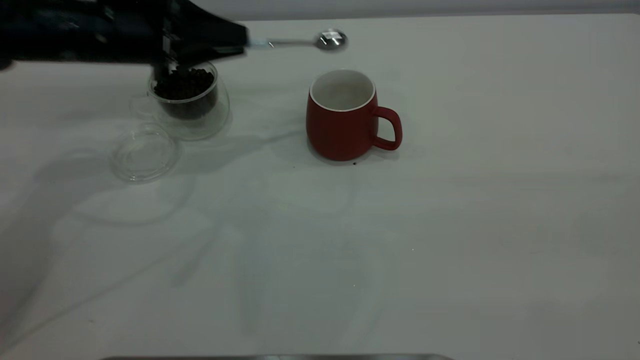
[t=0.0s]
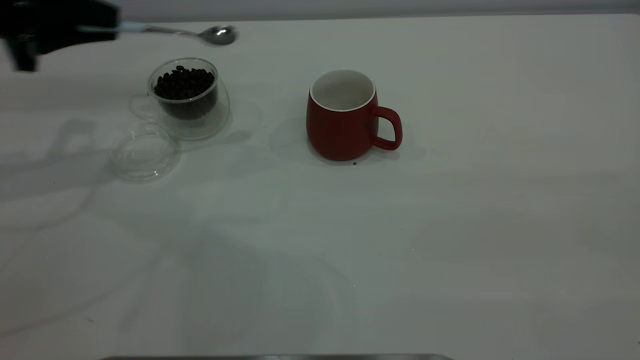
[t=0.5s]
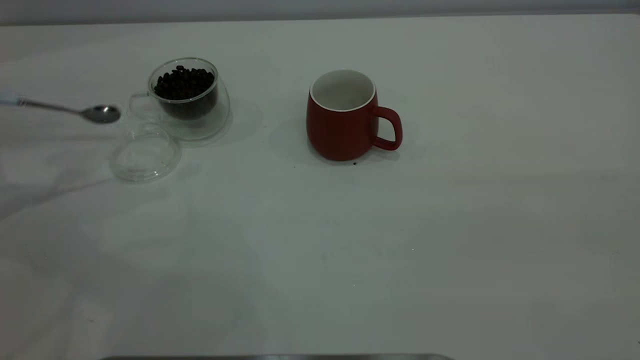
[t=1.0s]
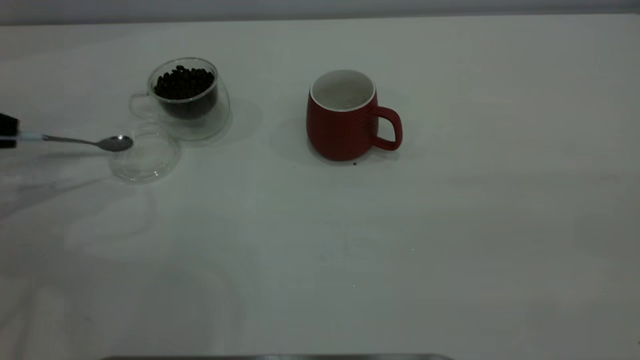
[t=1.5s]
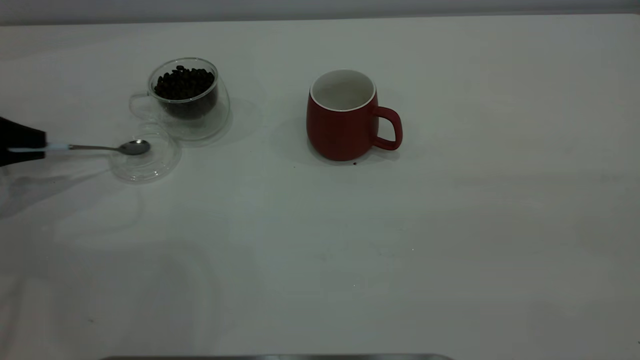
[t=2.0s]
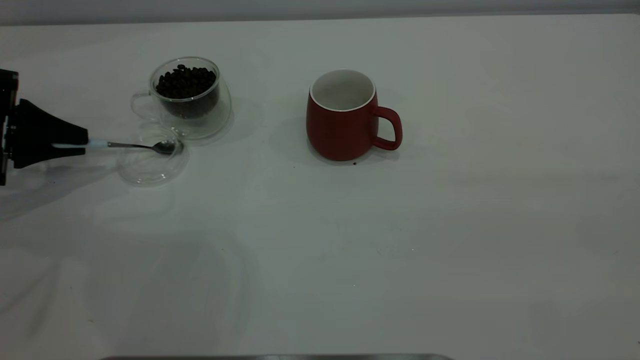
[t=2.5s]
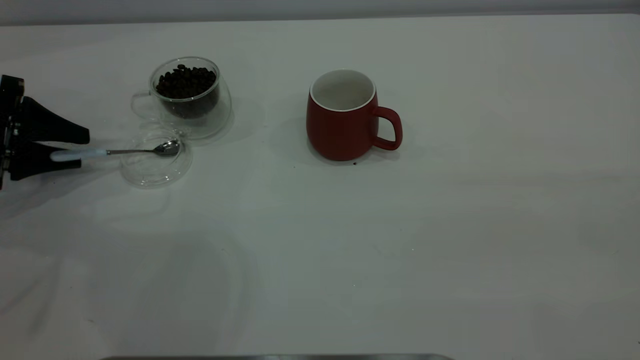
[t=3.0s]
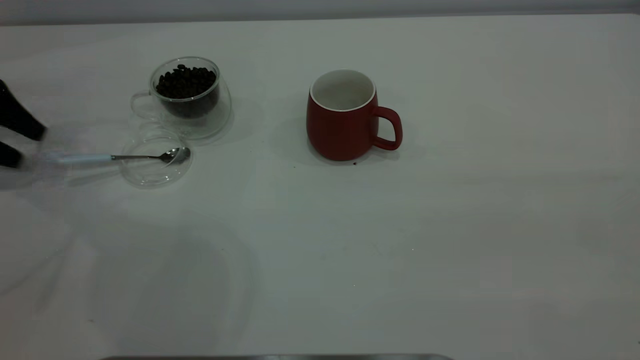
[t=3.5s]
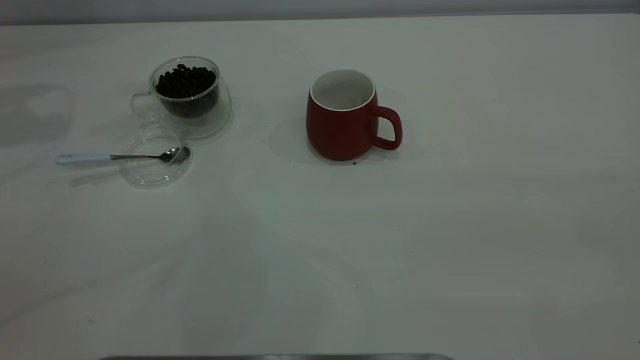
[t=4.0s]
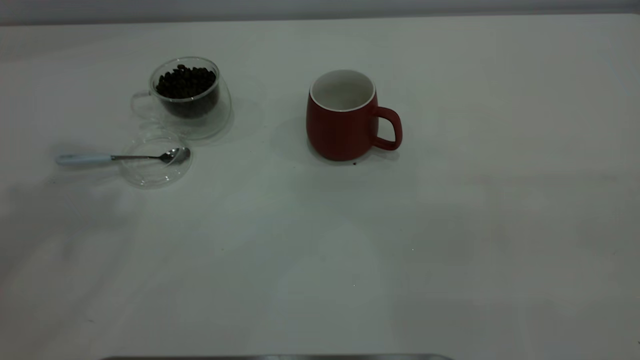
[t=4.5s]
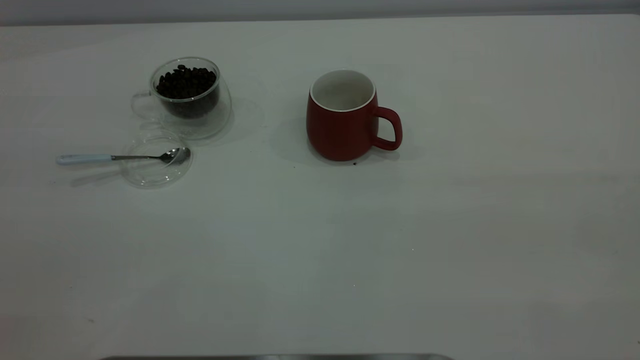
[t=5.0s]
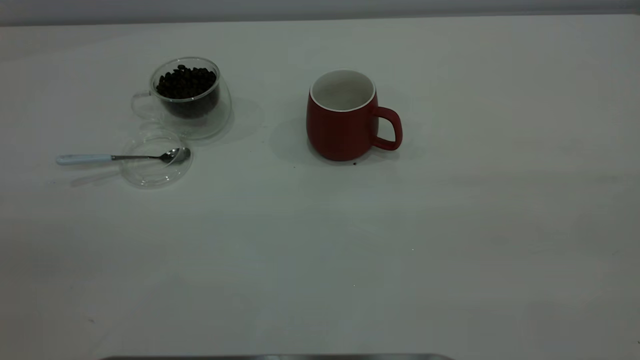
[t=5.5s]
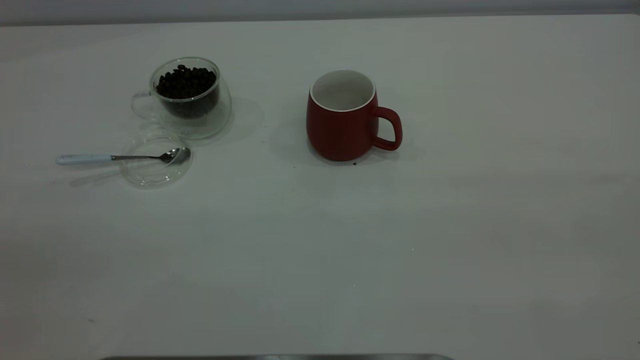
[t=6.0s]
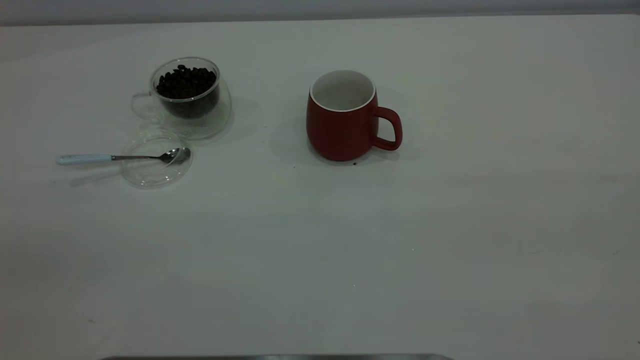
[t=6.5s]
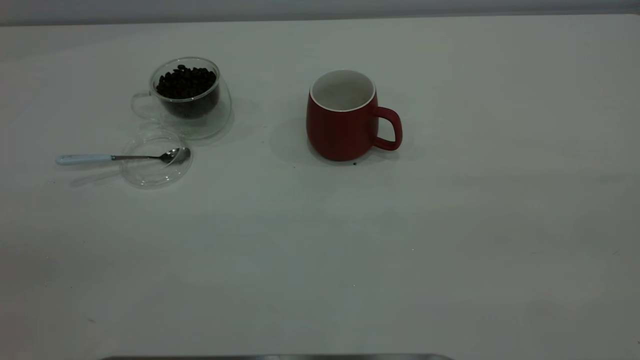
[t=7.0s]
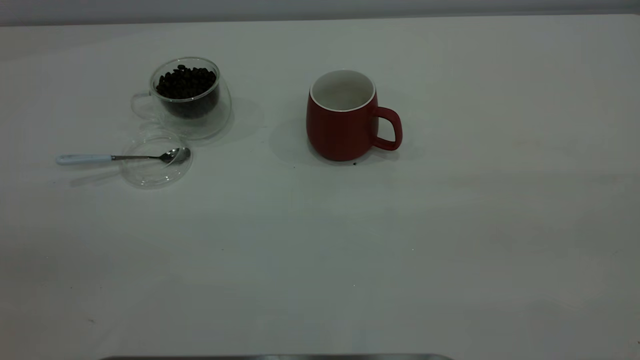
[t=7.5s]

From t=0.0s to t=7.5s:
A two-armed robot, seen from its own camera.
Task of the whole recording: the right gripper place the red cup in the center of the table, the left gripper take the blue spoon from the cup lid and scoop out the coffee beans from the coffee cup and put them into the red cup, the left gripper put the spoon back into the cup lid.
Step, from t=0.0s to t=3.0s: Place the spoon back in its original place.
From t=0.0s to t=2.0s: The left gripper heads to the left, covering some 20 cm.
From t=2.0s to t=4.0s: The left gripper moves upward and forward, some 25 cm, and opens its fingers.

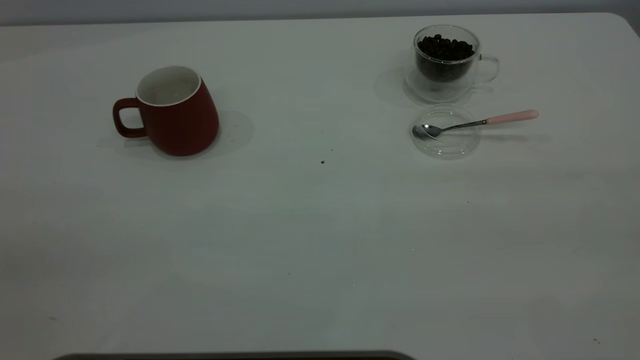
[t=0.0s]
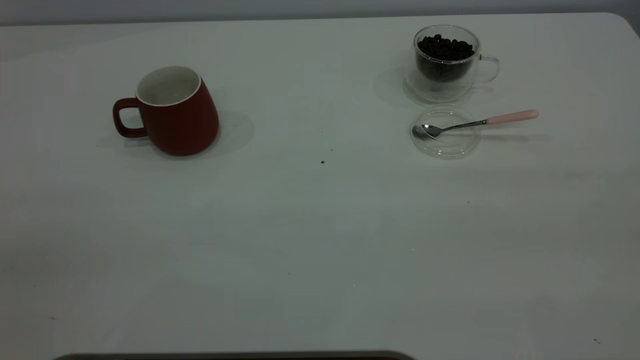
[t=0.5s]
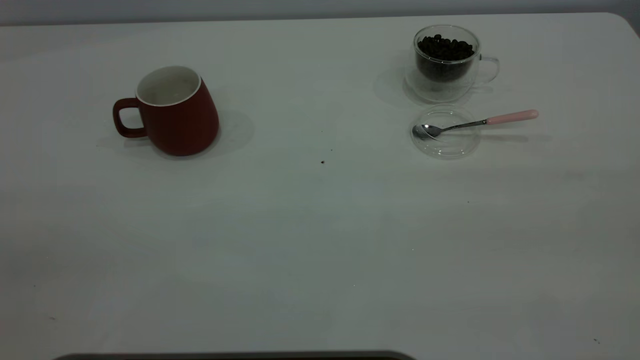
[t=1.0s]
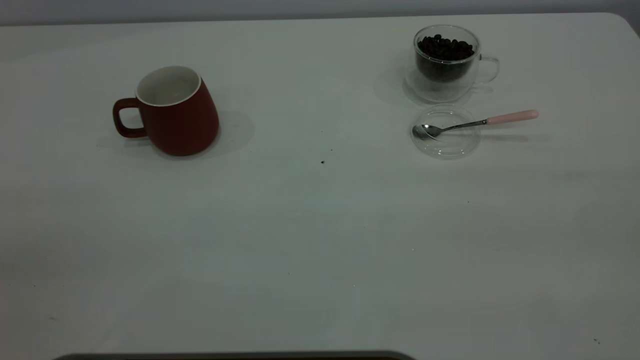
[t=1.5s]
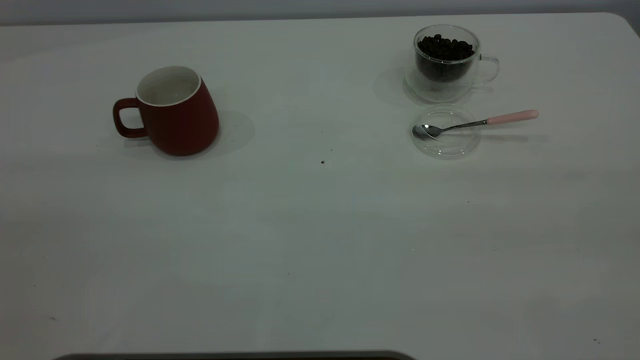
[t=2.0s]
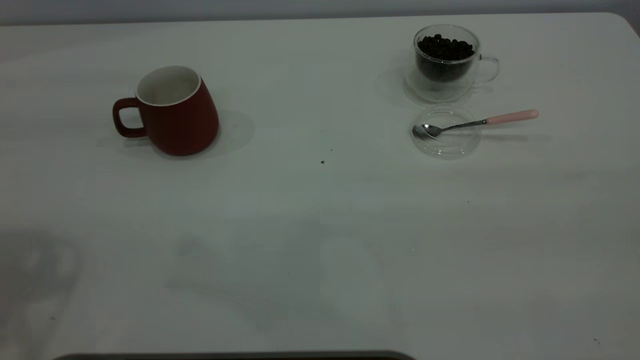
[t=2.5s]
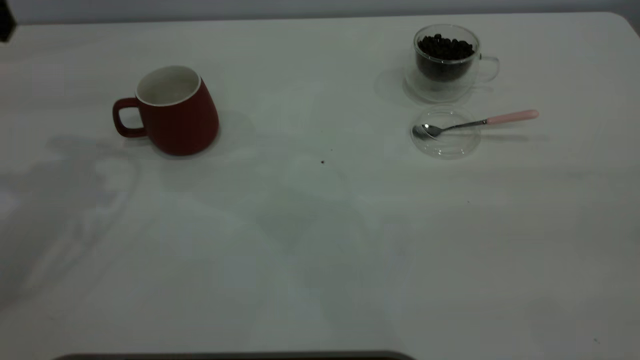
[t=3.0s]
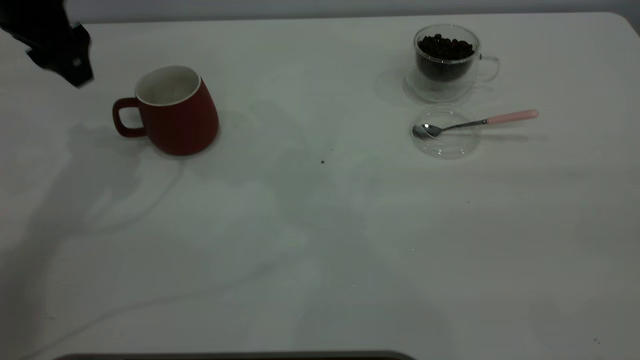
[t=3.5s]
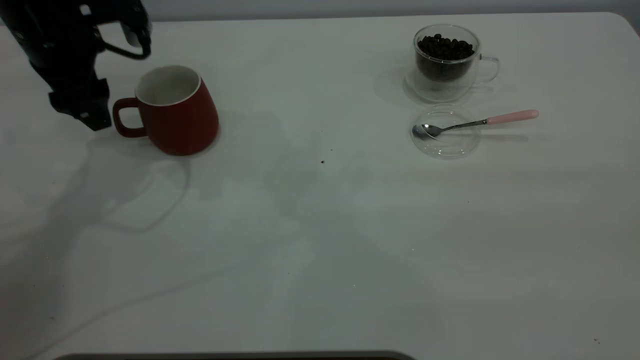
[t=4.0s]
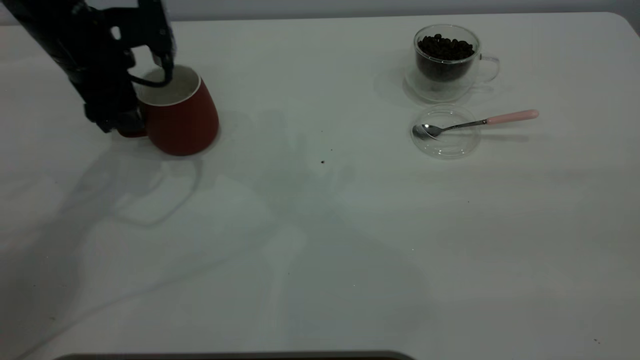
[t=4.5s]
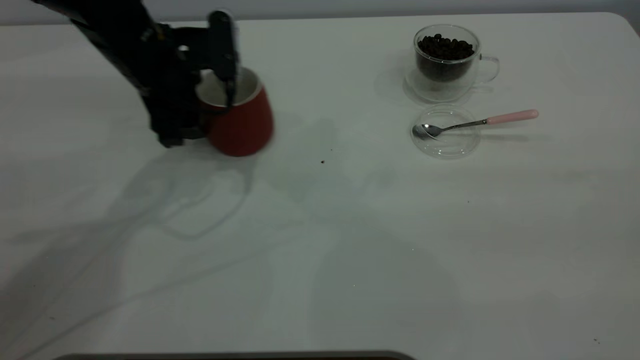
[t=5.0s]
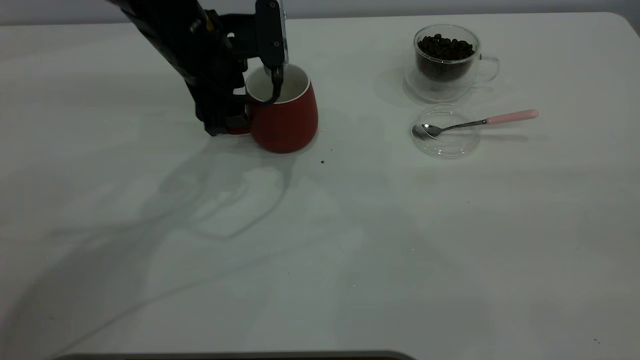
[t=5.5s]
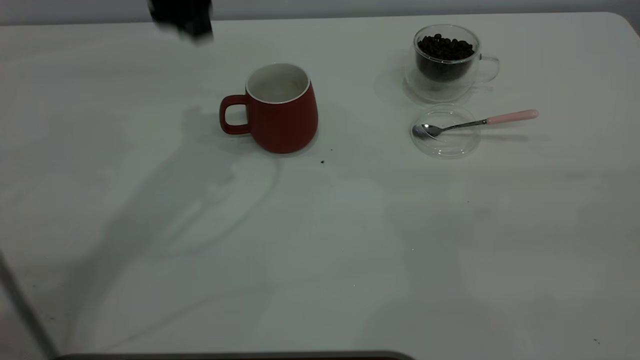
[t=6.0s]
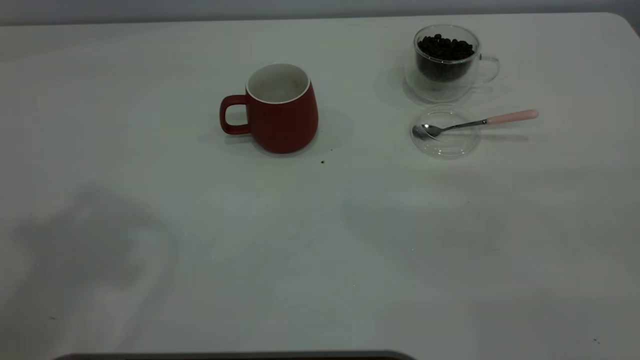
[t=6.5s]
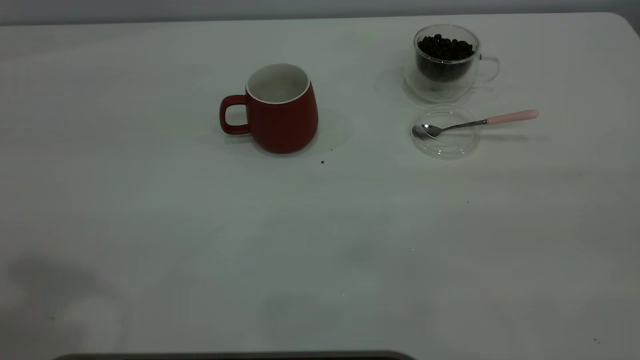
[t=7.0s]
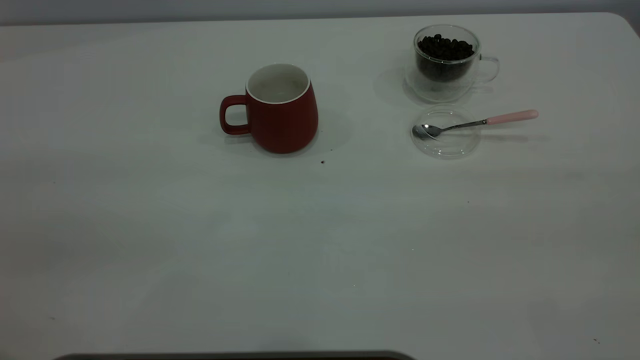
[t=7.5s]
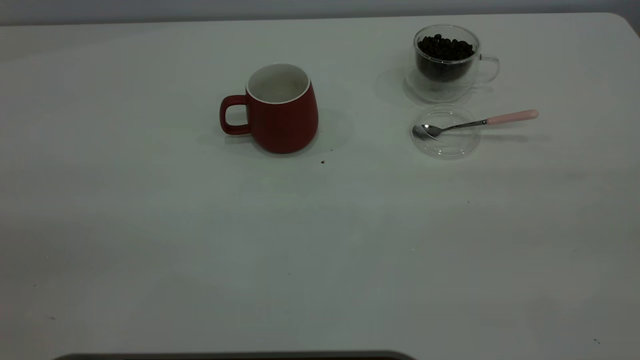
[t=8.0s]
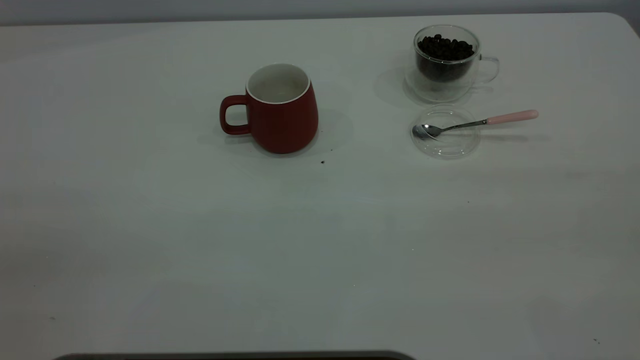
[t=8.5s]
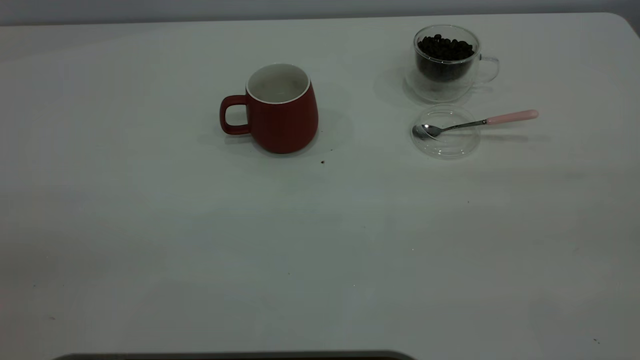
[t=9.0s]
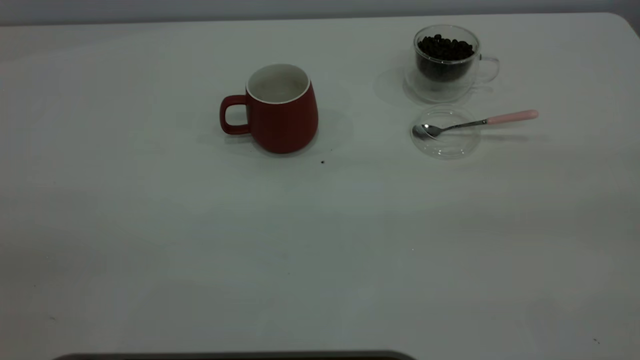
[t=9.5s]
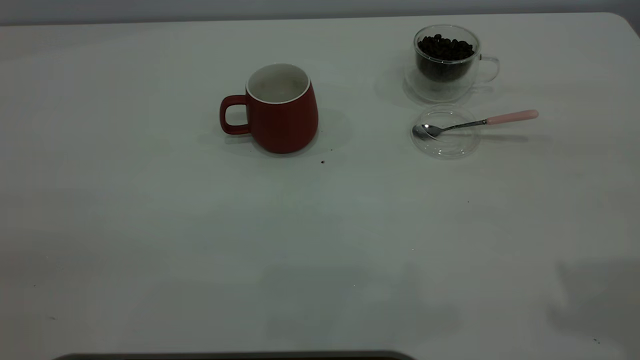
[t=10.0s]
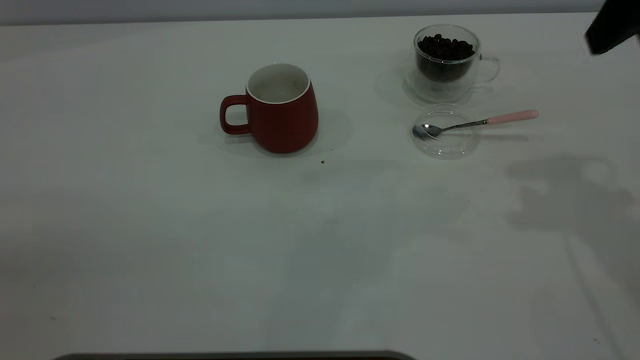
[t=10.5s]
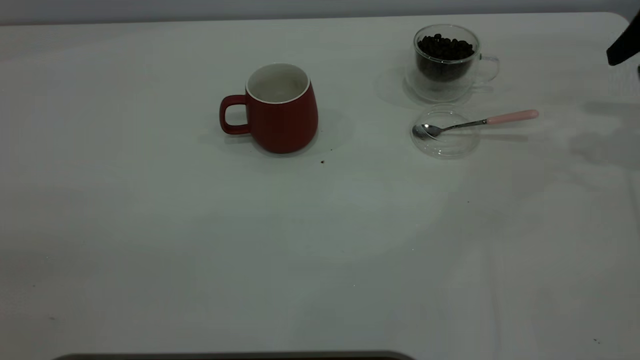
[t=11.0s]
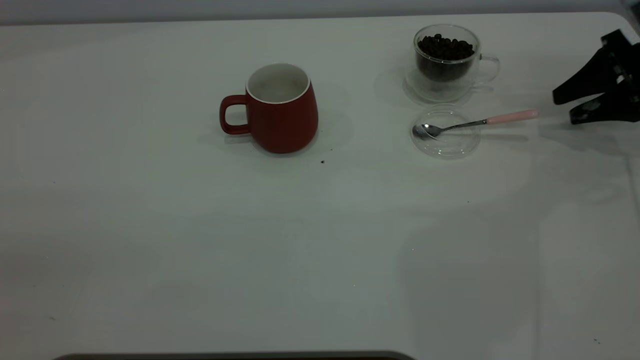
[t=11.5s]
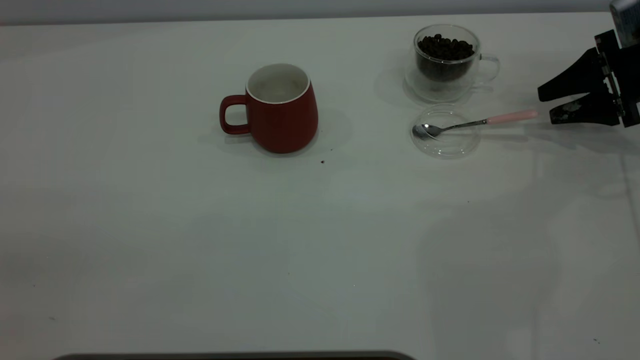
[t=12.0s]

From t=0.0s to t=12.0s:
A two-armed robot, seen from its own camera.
Task of the whole recording: the left gripper place the red cup in the center of the table, the right gripper take the pink spoon from the cup lid and scoop out the coffee beans from the coffee cup and put them into the red cup, the right gripper put the spoon back into the cup lid.
Step, from t=0.0s to t=5.5s: Move the cup to the center of view.
From t=2.0s to t=4.0s: The left gripper moves forward and downward, about 40 cm.
From t=4.0s to t=6.0s: The left gripper is displaced upward and to the right by approximately 15 cm.
From t=6.0s to t=8.0s: The left gripper heads backward and to the left, covering approximately 40 cm.
From t=10.0s to t=12.0s: The right gripper heads downward, forward and to the right, covering roughly 40 cm.
